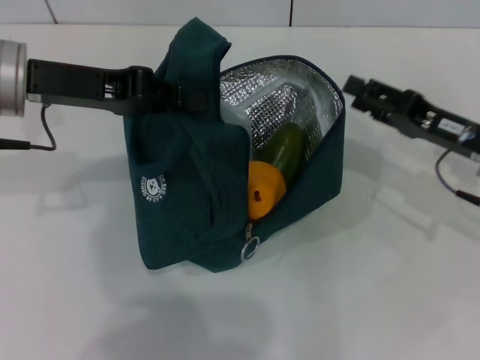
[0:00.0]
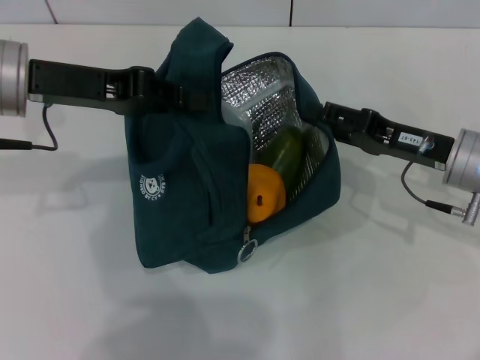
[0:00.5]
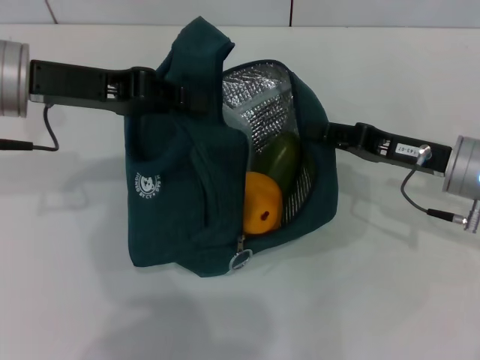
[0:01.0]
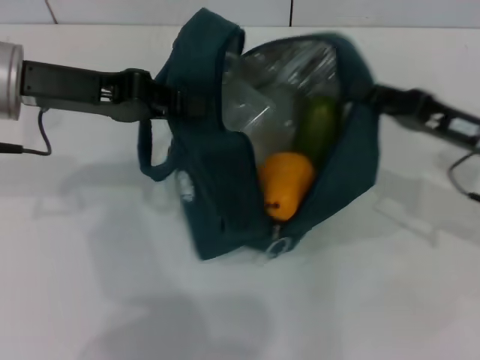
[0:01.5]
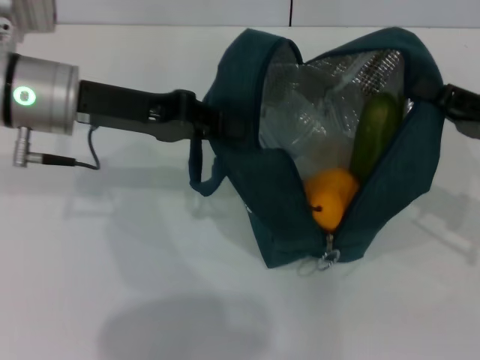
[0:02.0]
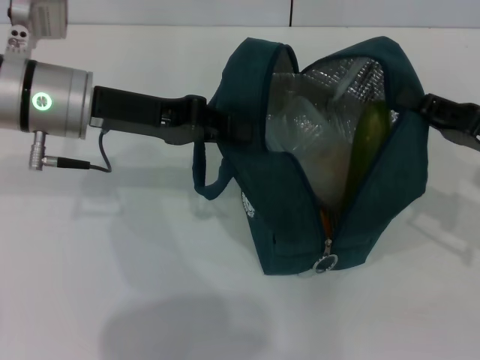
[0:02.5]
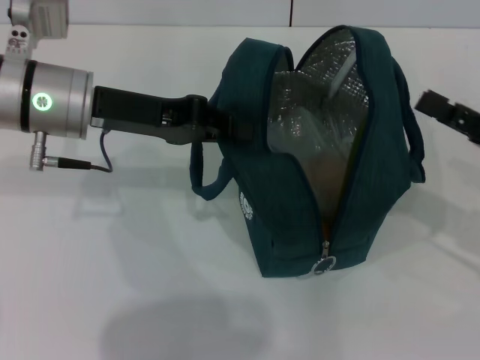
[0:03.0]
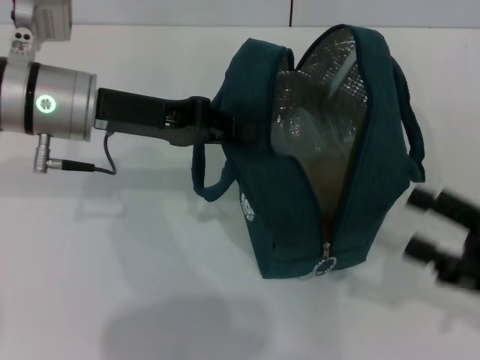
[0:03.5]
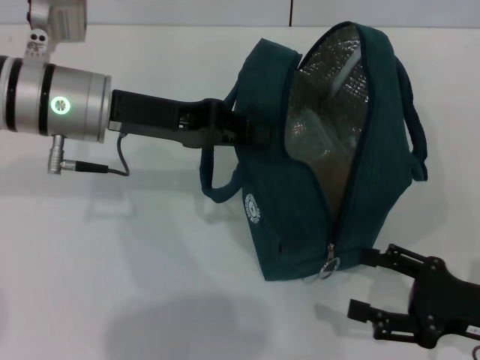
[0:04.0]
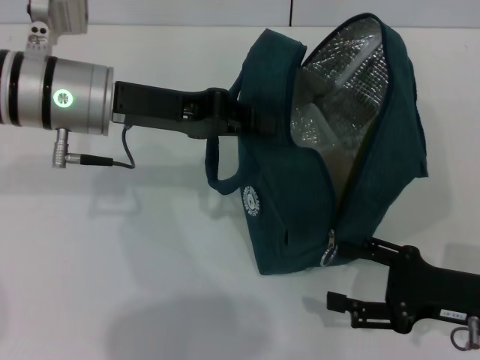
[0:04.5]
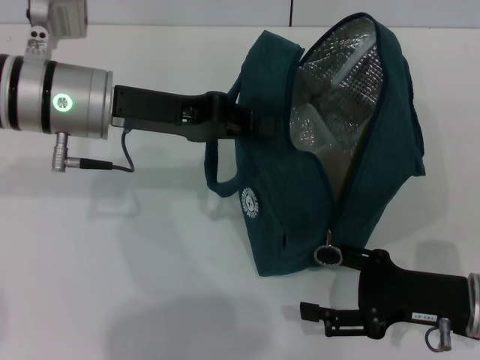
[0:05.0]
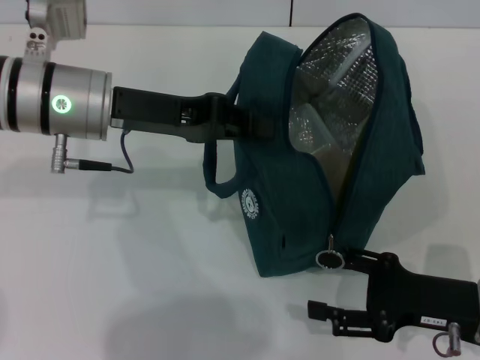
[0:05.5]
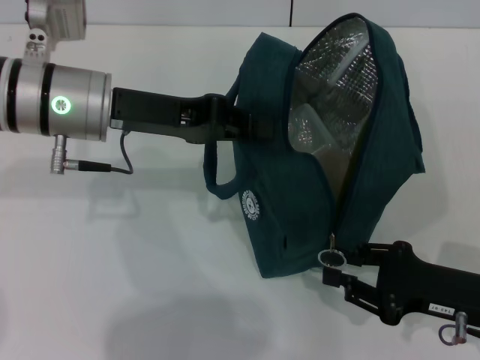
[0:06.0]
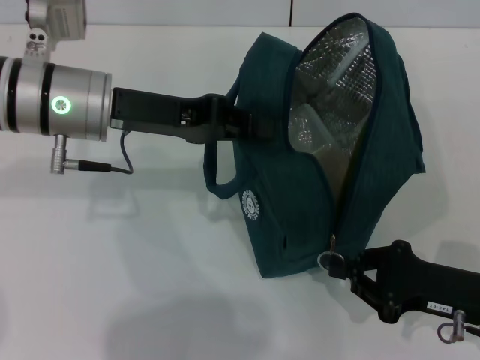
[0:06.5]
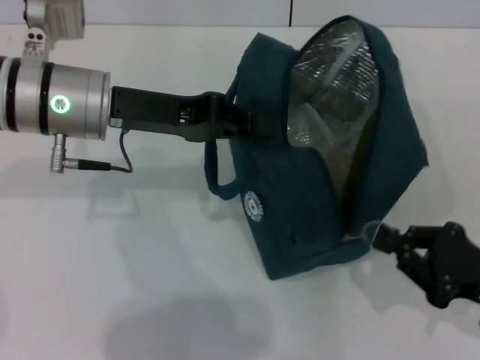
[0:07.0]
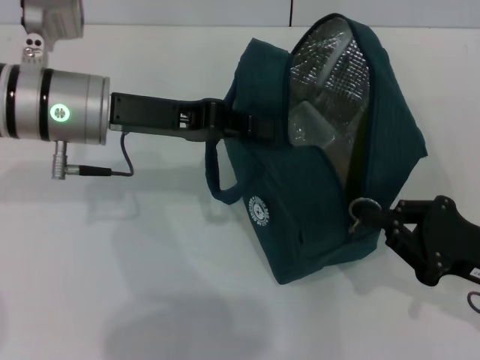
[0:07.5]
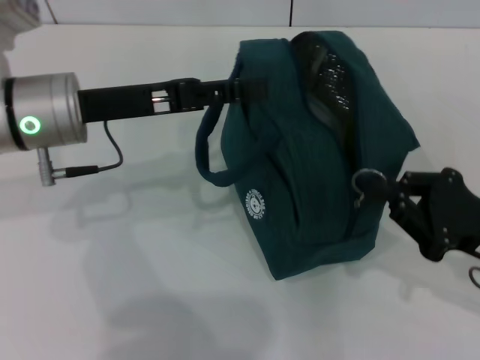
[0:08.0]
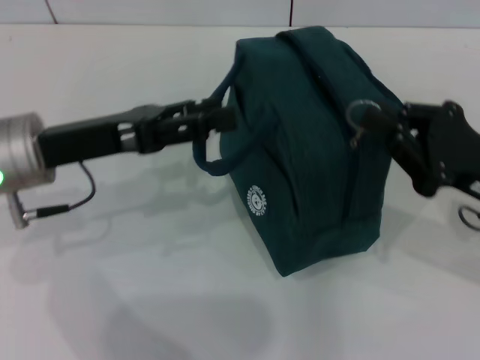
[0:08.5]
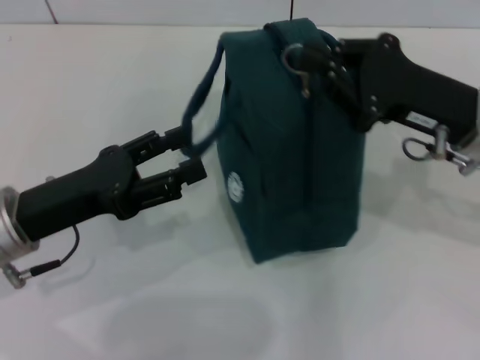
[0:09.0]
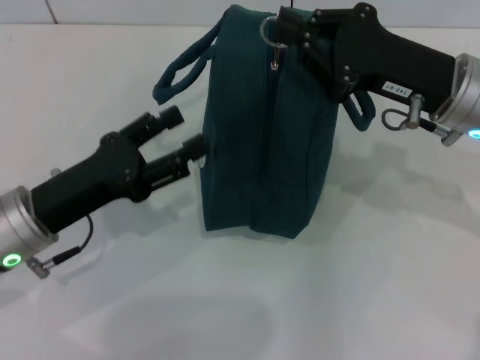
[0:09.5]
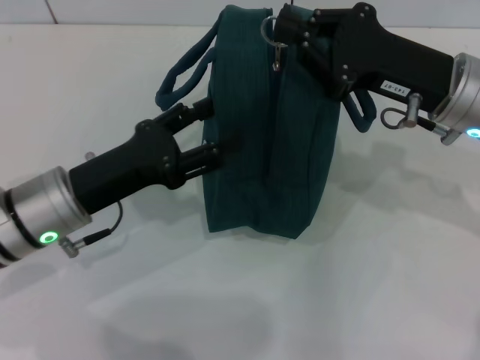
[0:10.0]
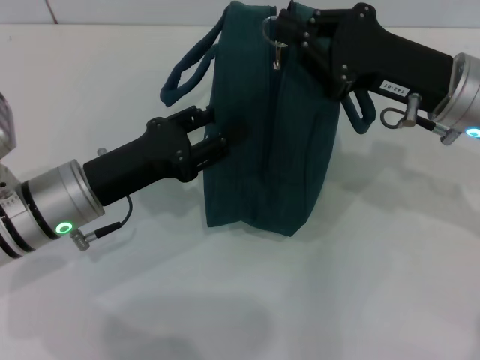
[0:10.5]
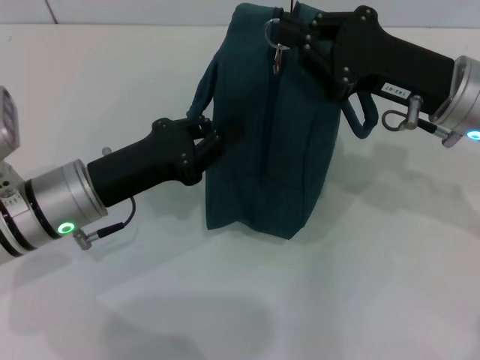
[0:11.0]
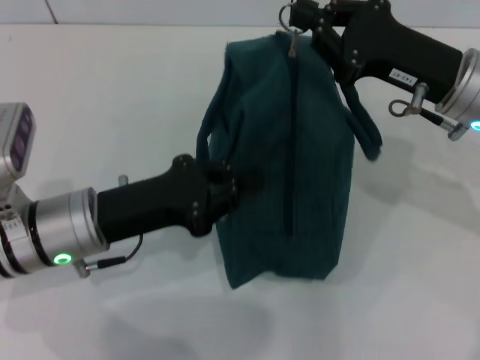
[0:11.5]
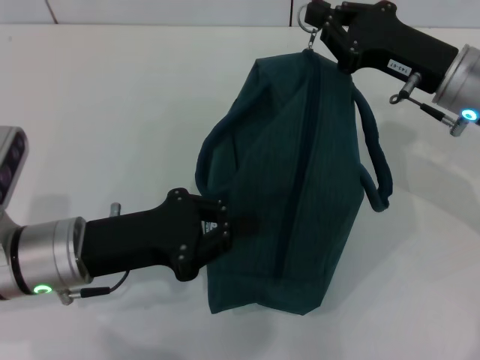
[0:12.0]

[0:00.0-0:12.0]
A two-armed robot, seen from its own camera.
Step, 0:00.0 to 0:02.5: Hold the lunch bag with your right hand.
Step, 0:03.5 to 0:08.0: Hold the lunch bag with your left hand.
0:00.0 to 0:02.0: The right gripper moves about 5 cm, and closes its fingers.
0:02.0 to 0:04.0: The right gripper shifts roughly 10 cm backward and downward, and opens its fingers.
0:04.0 to 0:06.0: The right gripper closes its fingers.
0:06.0 to 0:08.0: The left gripper opens; the right gripper closes up.
0:08.0 to 0:10.0: The right gripper heads forward, to the left and upward, covering about 15 cm. Meanwhile the left gripper is displaced downward and backward by some 10 cm, and opens up.
0:10.0 to 0:12.0: The left gripper closes.

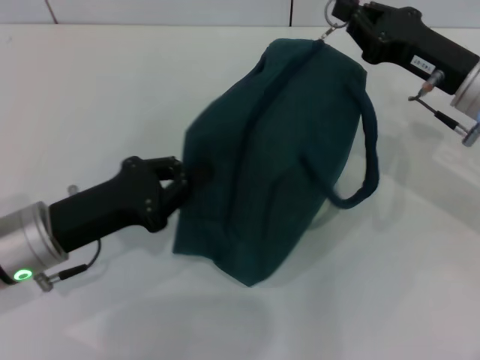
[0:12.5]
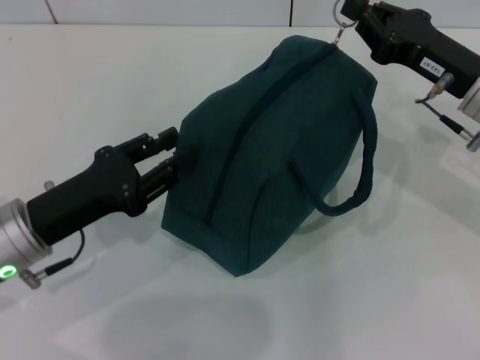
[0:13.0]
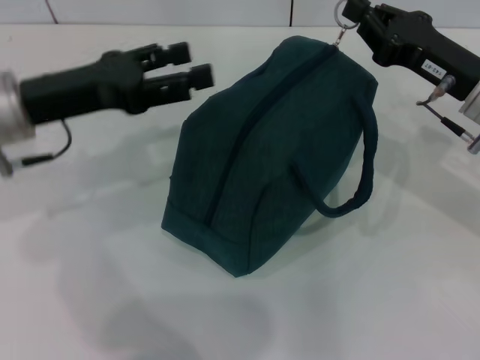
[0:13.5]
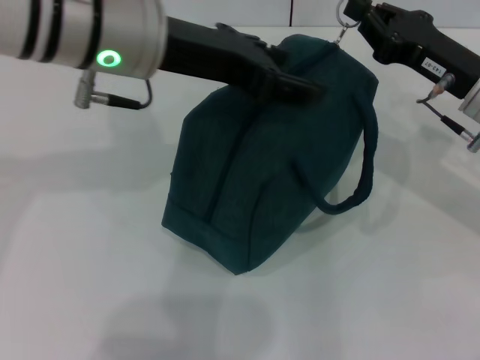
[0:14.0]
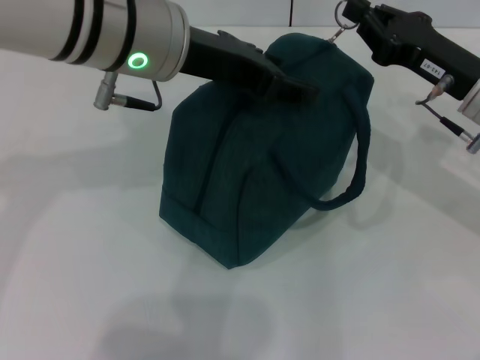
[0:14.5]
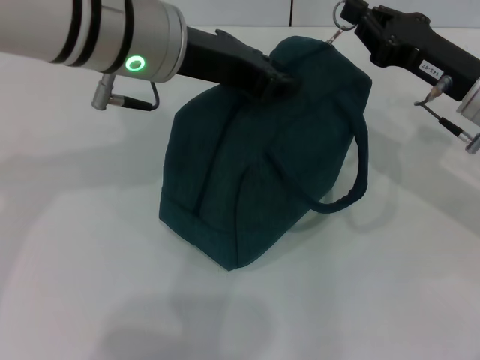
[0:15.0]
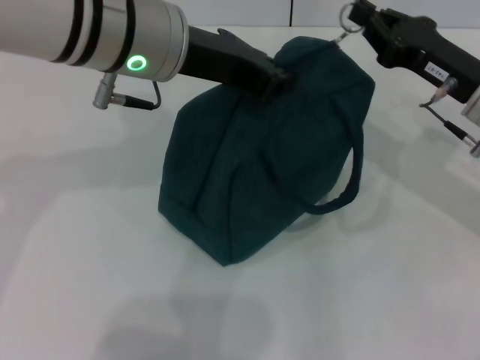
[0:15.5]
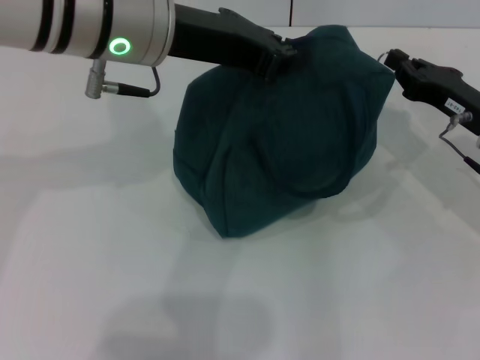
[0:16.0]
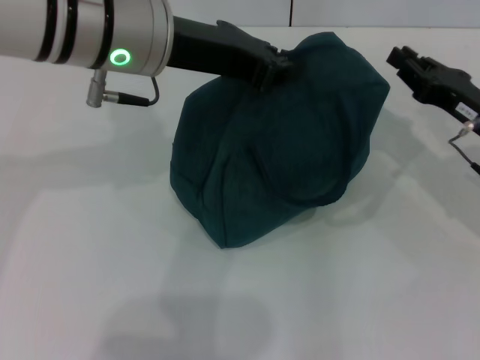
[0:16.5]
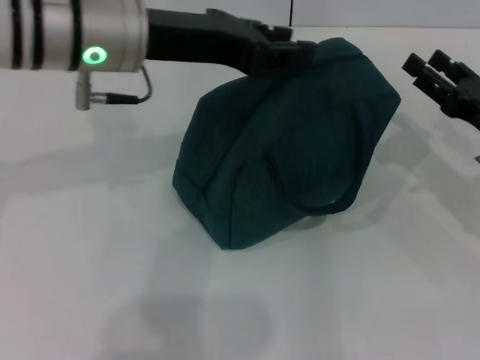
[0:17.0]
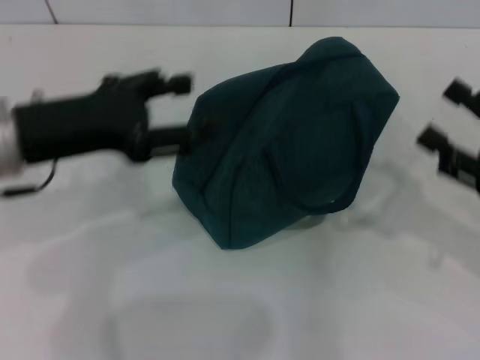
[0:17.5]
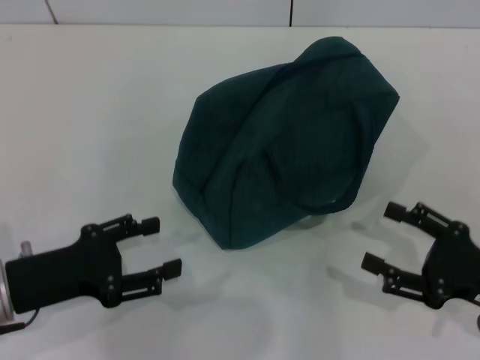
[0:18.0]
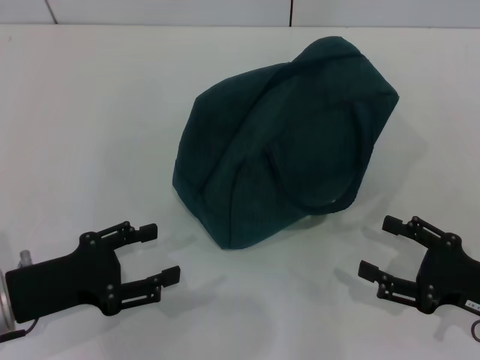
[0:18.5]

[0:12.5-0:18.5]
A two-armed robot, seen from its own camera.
Step, 0:12.5 to 0:16.5: Zip up the lunch bag with your right hand.
0:12.5 to 0:14.5: The left gripper goes approximately 25 cm upward, to the right and forward, and opens up.
0:14.5 to 0:16.5: The right gripper moves approximately 5 cm. Meanwhile the left gripper closes.
0:16.5 to 0:18.5: The left gripper heads downward, to the left and backward, covering roughly 30 cm, and opens its fingers; the right gripper heads backward and downward, covering some 15 cm, and opens.
